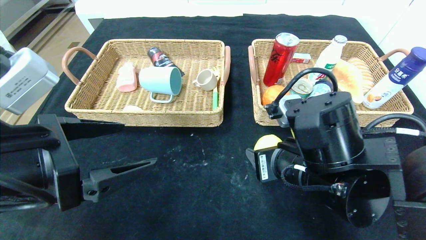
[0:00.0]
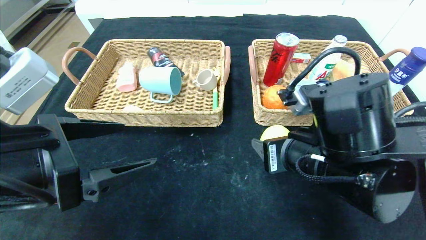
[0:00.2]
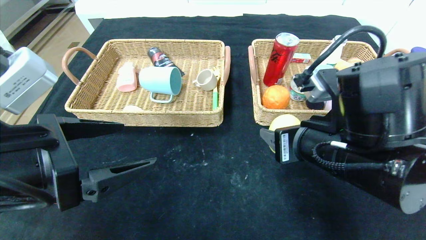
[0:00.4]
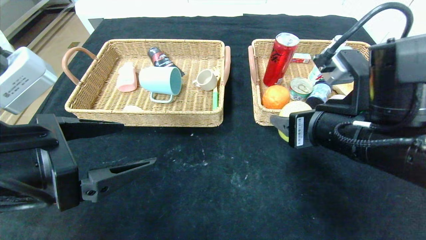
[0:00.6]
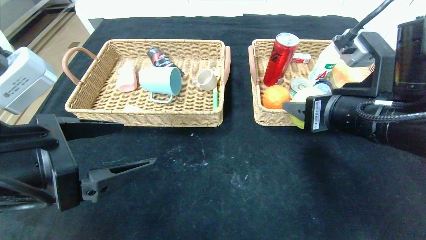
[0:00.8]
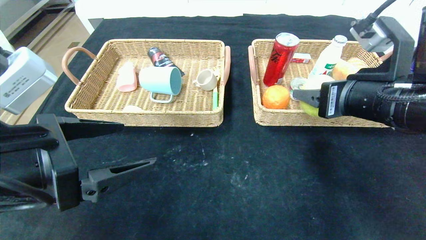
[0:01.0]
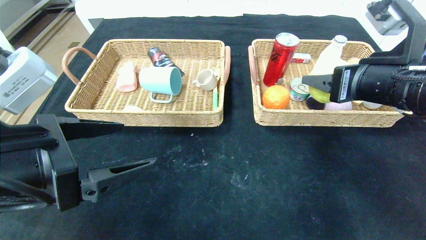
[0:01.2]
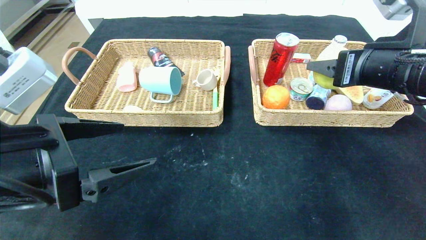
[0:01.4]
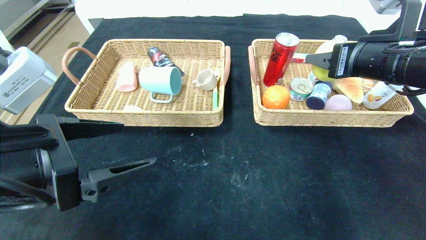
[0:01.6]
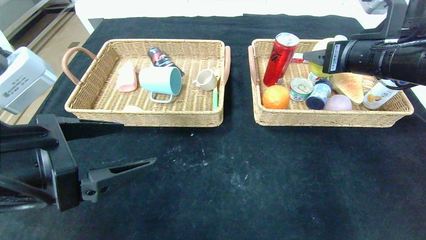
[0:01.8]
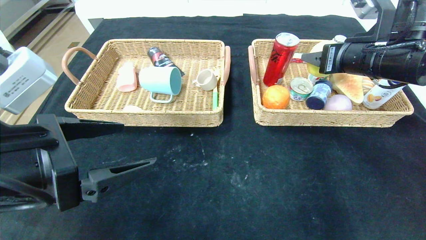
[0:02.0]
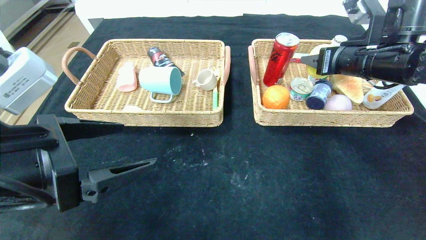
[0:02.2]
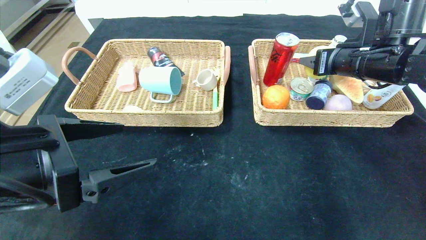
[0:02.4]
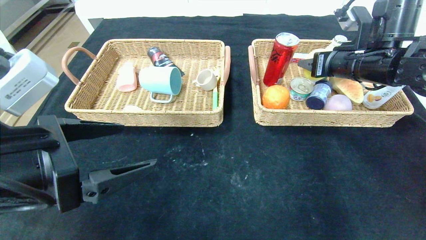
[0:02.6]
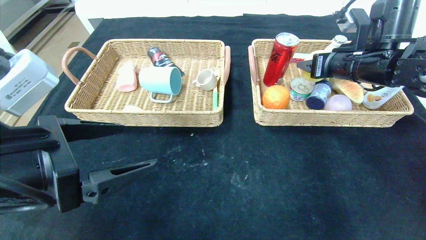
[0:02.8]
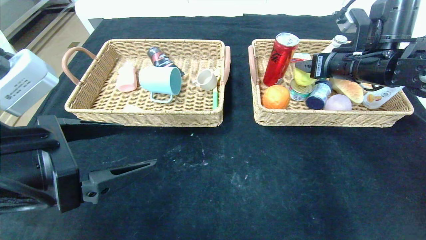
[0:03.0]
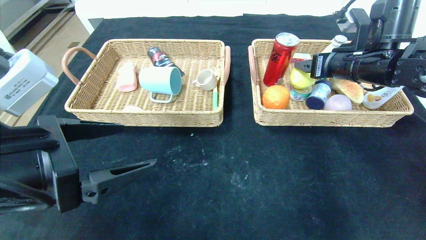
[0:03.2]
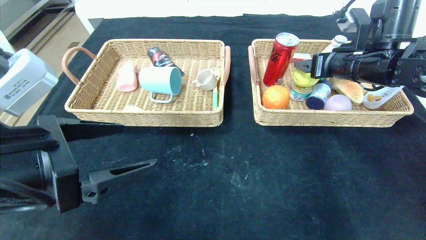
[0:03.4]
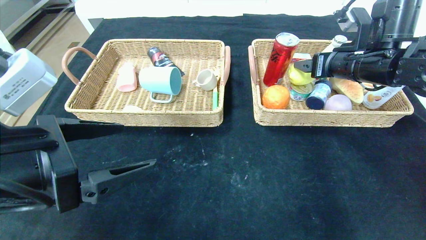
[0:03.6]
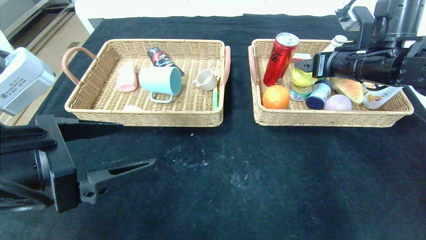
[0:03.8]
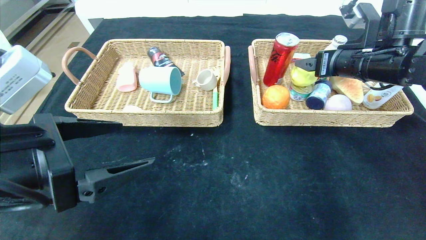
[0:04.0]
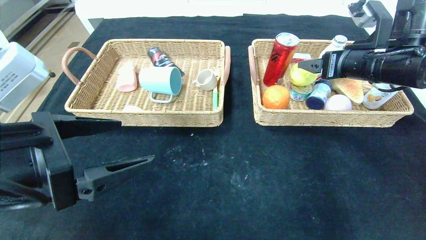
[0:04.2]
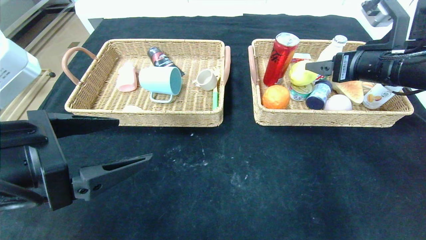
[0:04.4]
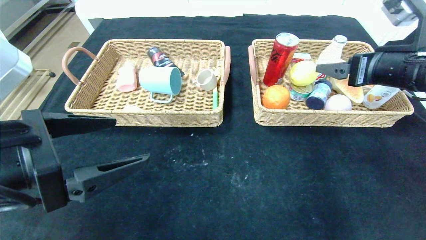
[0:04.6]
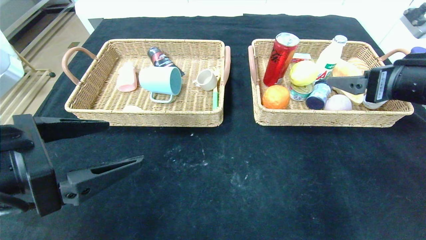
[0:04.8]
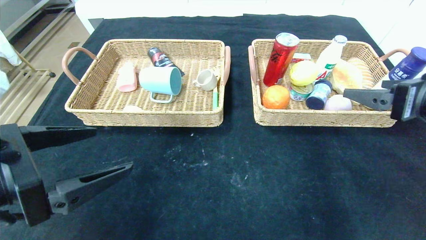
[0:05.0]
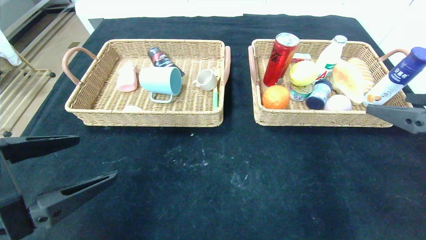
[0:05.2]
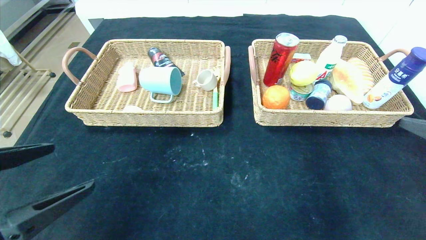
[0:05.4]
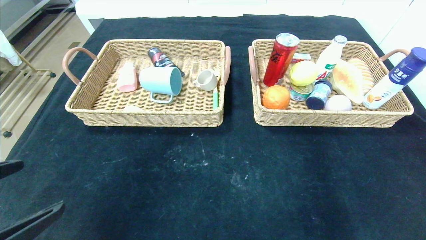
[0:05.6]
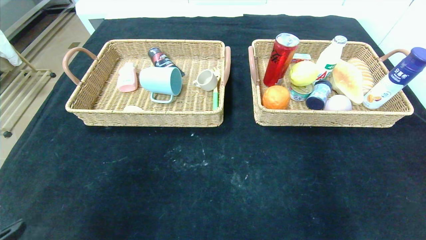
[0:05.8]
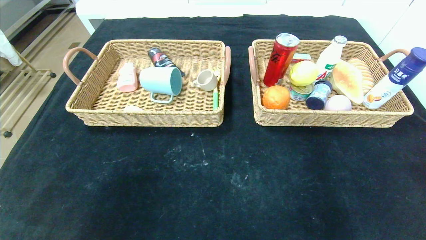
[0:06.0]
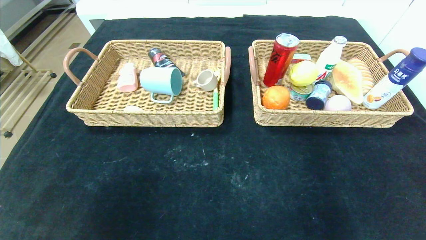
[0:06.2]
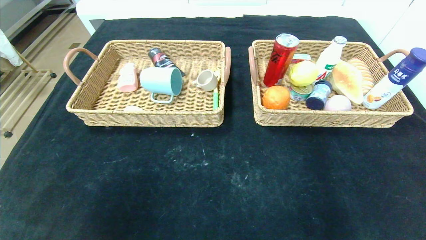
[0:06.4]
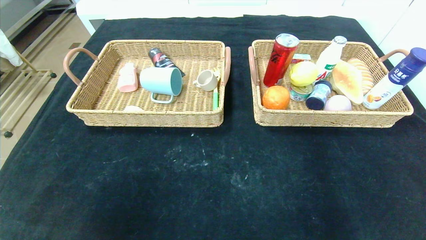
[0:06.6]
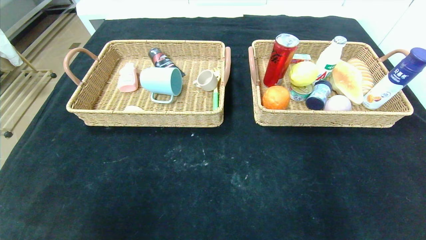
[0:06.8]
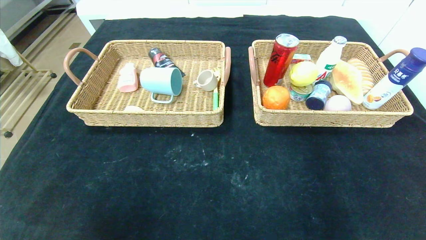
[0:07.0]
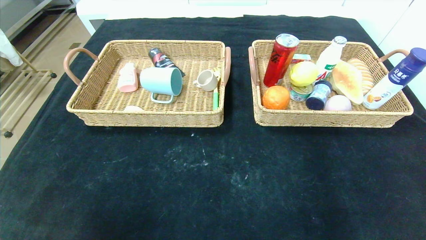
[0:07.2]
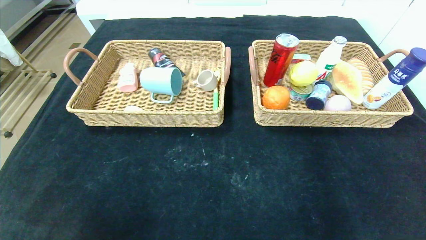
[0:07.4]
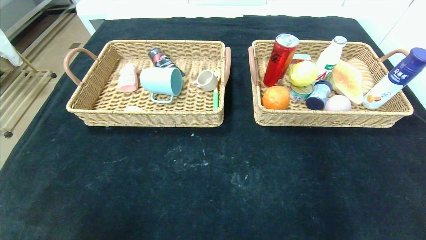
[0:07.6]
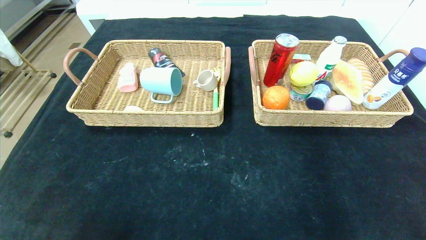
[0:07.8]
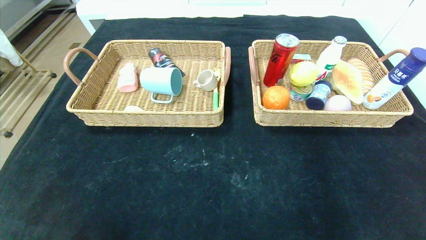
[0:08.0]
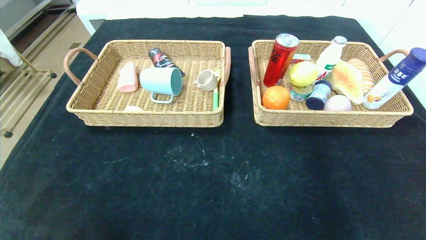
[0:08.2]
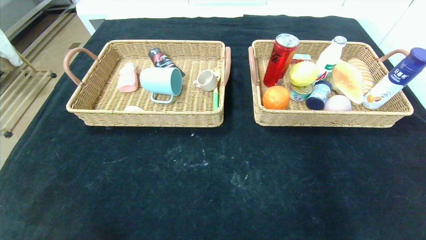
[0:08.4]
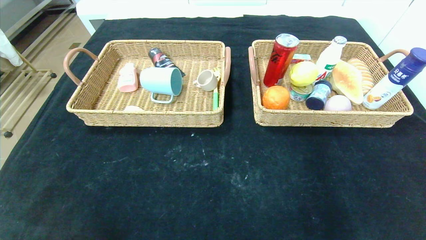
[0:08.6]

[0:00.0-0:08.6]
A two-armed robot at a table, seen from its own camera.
Step, 0:00.0 to 0:03.0: Grasp the lemon and put it in the right basket.
0:00.0 to 0:01.4: The right gripper is displaced to the right, upward and forward by some 15 cm.
0:01.4 to 0:02.8: The right gripper moves forward, roughly 10 cm.
0:02.8 to 0:04.4: The right gripper moves backward, roughly 5 cm, and opens its fingers.
0:04.4 to 0:05.8: The left gripper goes approximately 15 cm backward and to the left. The right gripper is displaced backward by some 30 cm.
0:05.8 to 0:07.2: Both grippers move backward and downward, approximately 15 cm.

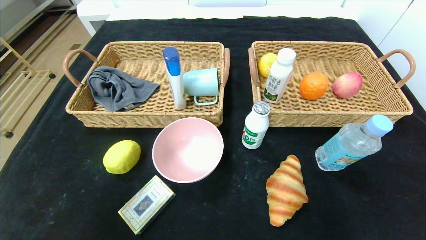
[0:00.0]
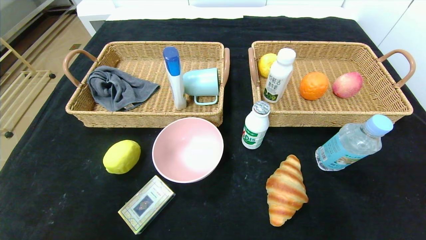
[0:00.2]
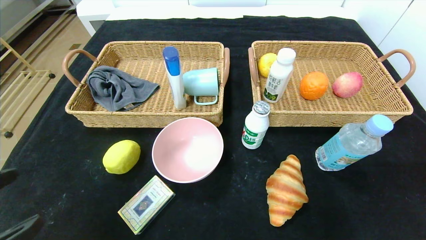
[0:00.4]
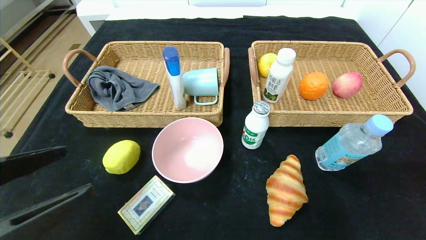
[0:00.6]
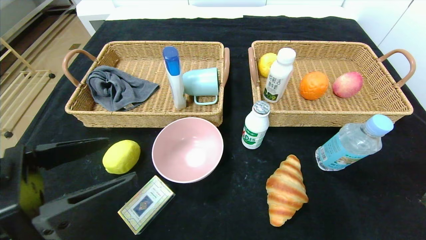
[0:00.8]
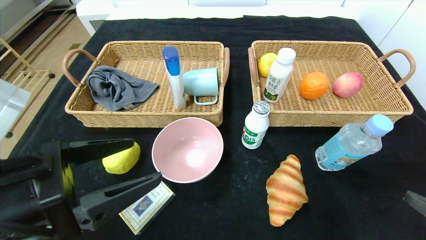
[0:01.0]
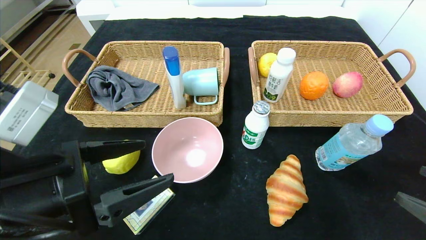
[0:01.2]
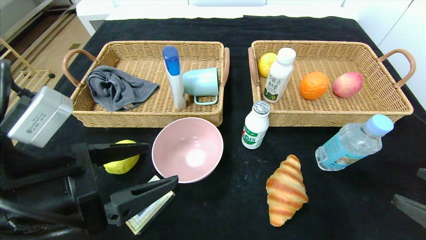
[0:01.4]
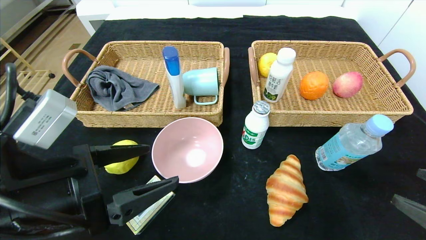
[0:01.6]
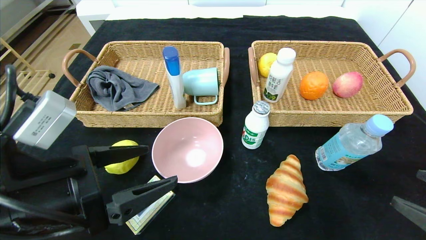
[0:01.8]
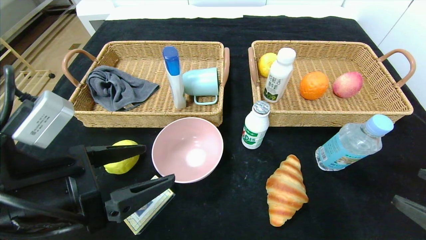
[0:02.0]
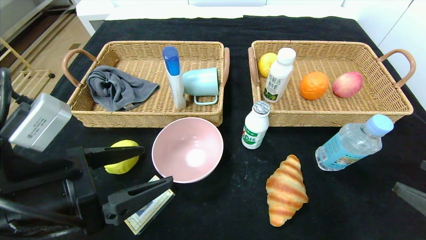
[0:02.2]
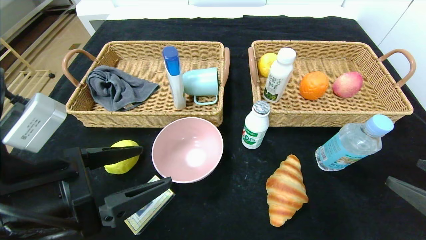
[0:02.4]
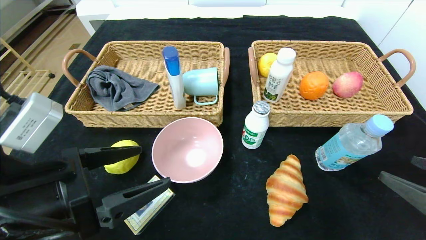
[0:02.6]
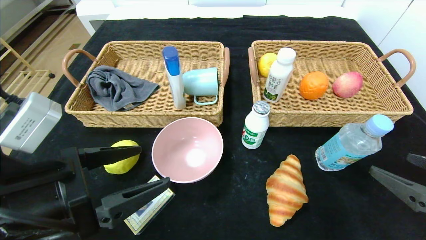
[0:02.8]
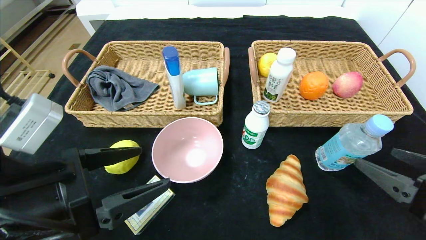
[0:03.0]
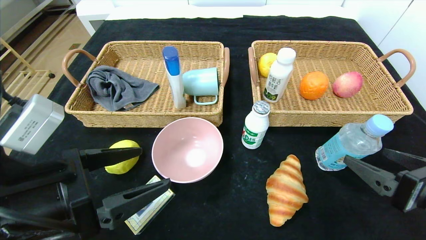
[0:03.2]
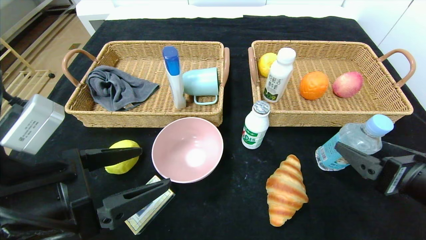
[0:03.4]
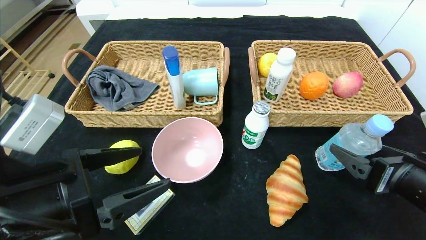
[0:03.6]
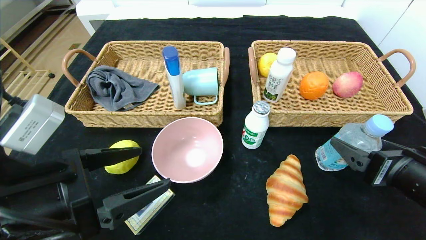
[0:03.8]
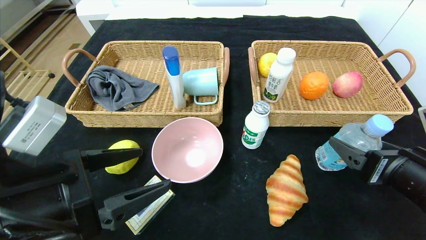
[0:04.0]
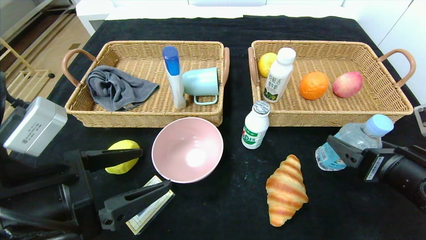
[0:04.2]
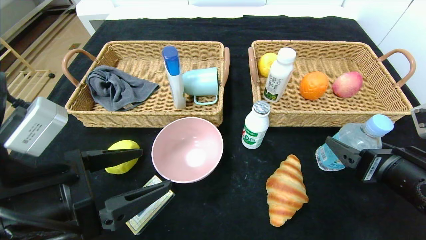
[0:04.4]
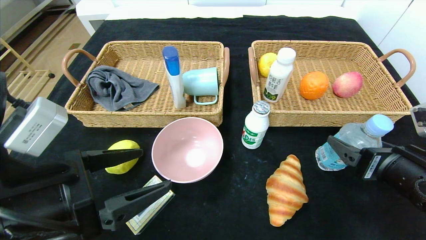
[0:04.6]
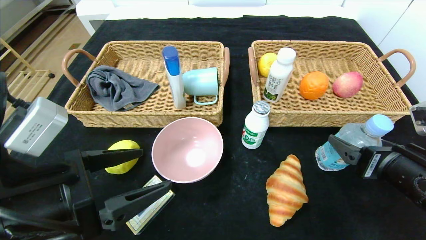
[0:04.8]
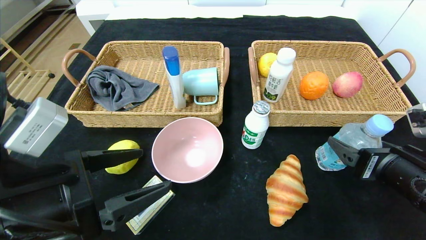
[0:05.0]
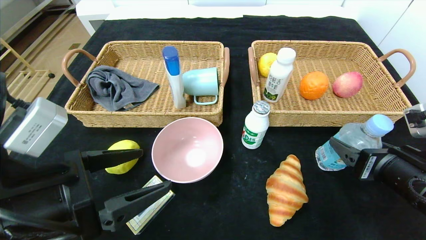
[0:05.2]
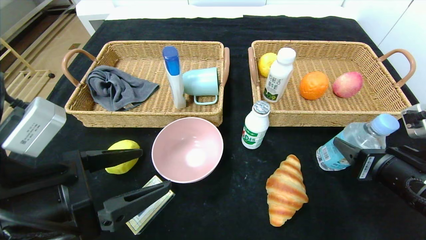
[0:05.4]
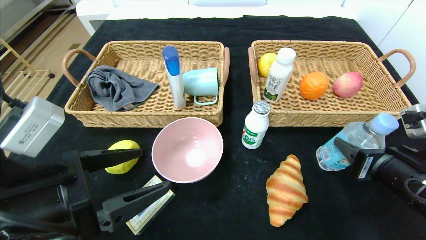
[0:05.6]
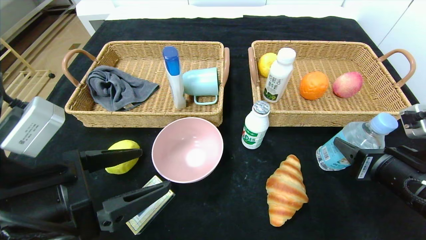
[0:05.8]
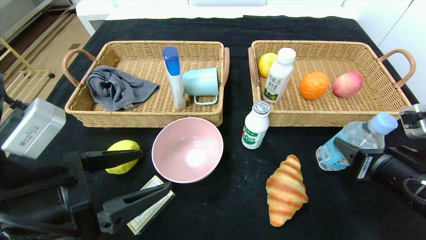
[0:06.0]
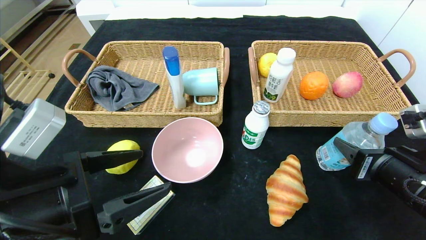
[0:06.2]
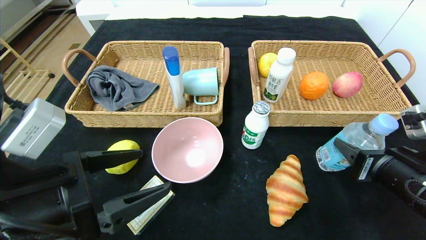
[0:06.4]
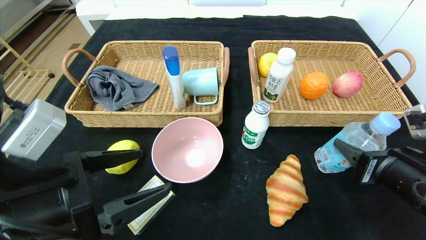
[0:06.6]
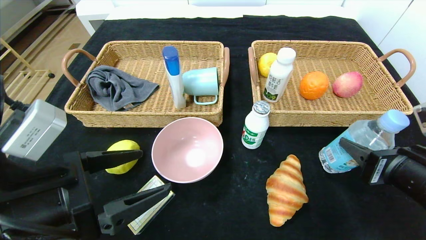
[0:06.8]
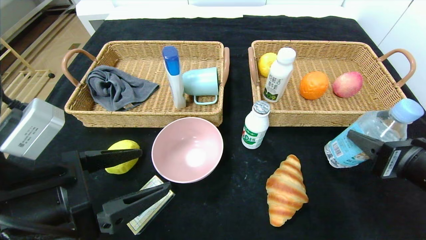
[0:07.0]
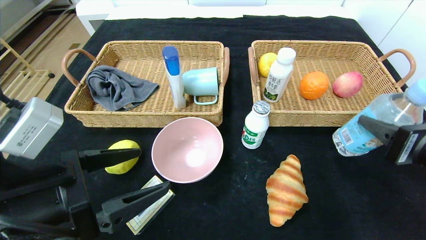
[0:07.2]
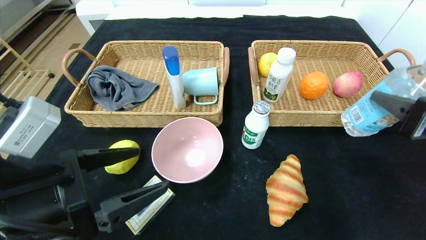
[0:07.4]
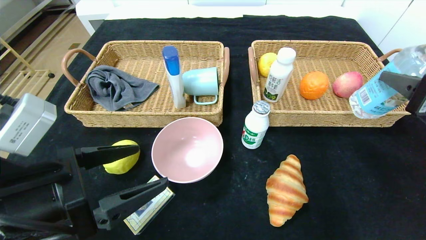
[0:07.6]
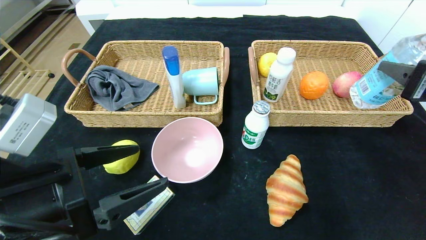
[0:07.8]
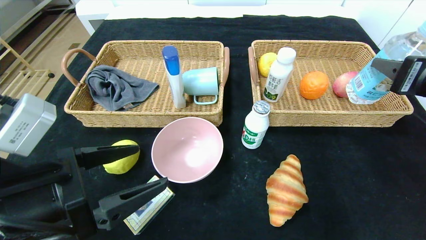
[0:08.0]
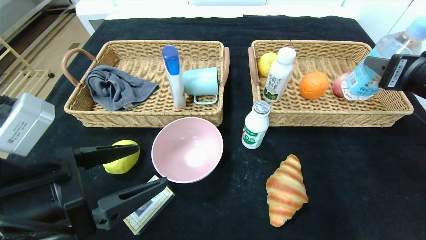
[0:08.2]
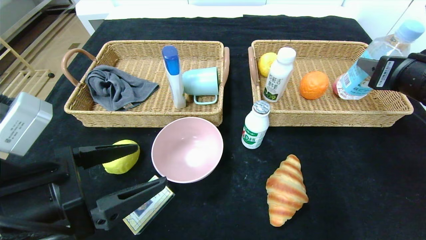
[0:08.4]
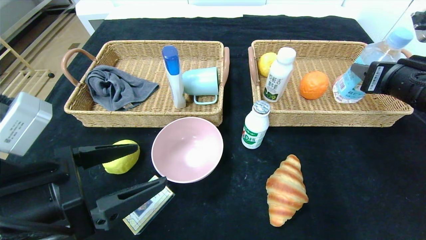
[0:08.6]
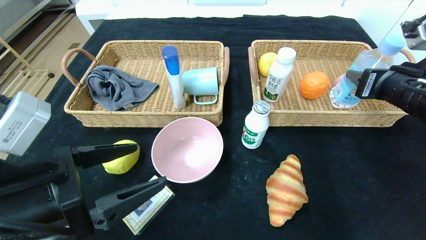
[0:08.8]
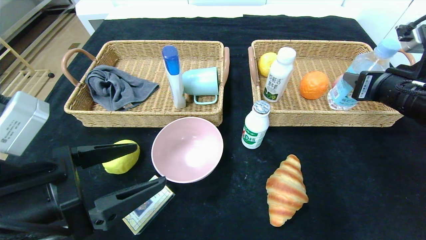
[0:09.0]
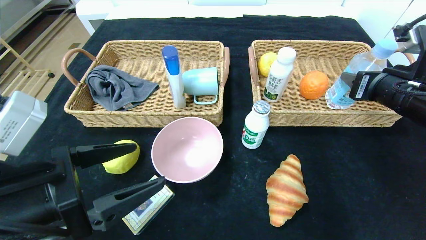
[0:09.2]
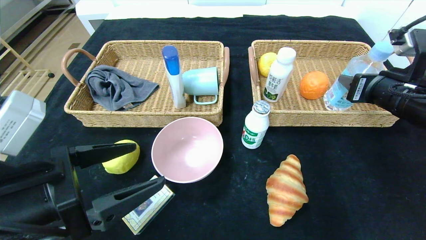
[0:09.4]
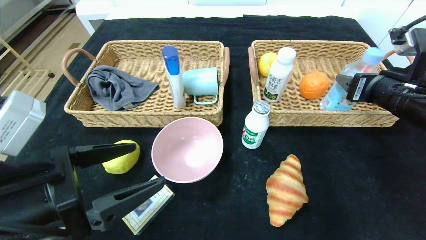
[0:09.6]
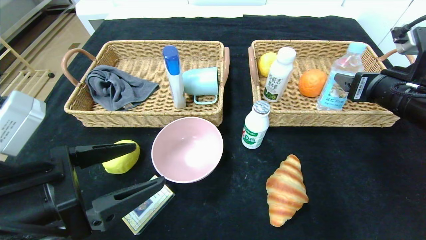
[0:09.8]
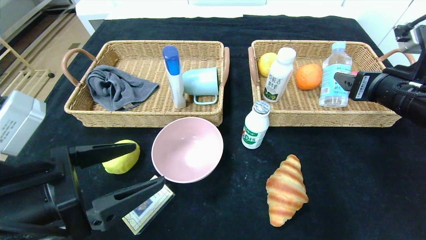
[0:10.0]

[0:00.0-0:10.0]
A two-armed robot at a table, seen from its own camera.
Step, 0:00.0 to 0:09.8: Grasp the soda water and put it in the right basket.
0:00.0 to 0:01.4: The left gripper travels forward and to the right by roughly 20 cm; the right gripper goes roughly 10 cm forward.
0:01.4 to 0:02.8: The grippers make only small movements.
0:02.8 to 0:04.2: The right gripper moves forward and to the left, roughly 10 cm.
0:04.2 to 0:05.8: The right gripper closes.
0:05.8 to 0:07.2: The right gripper heads upward, covering roughly 5 cm.
0:07.2 to 0:08.6: The right gripper travels forward and upward by about 10 cm.
0:08.6 to 0:10.0: The right gripper opens.
